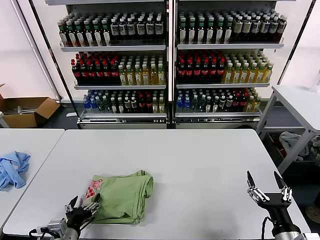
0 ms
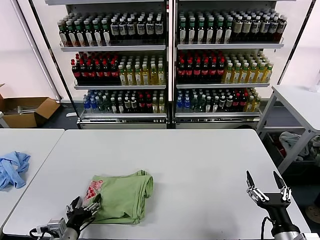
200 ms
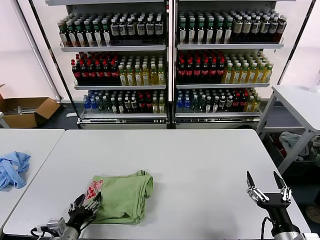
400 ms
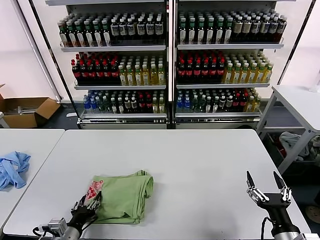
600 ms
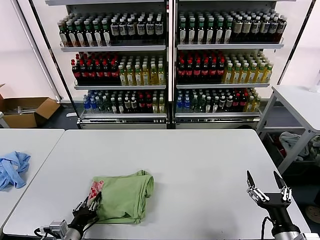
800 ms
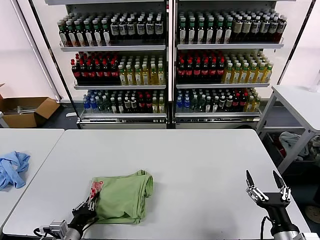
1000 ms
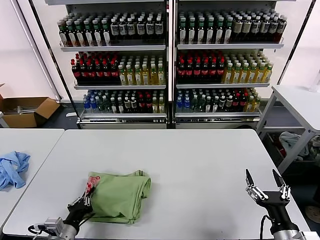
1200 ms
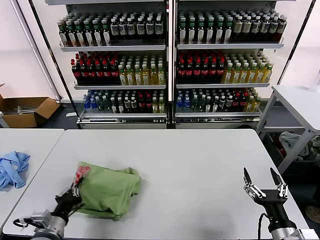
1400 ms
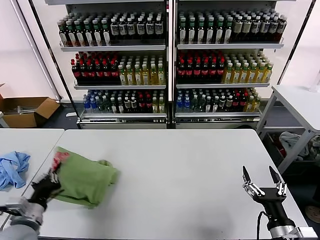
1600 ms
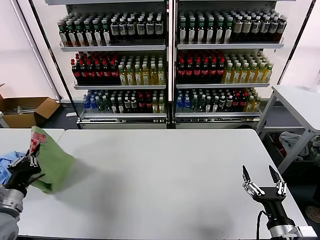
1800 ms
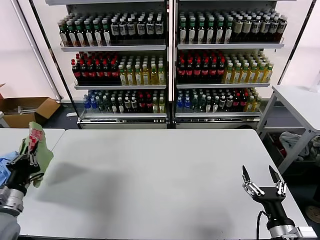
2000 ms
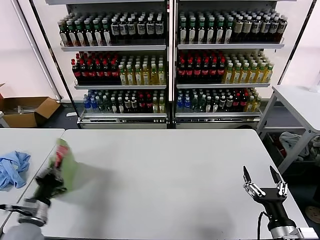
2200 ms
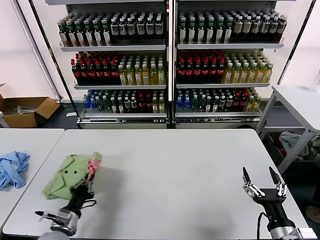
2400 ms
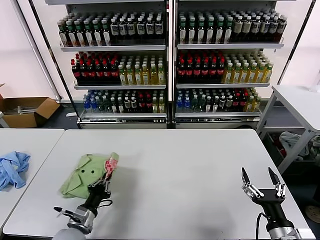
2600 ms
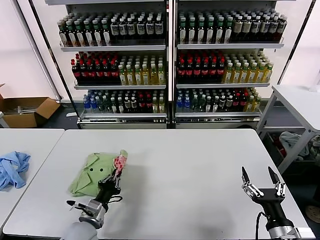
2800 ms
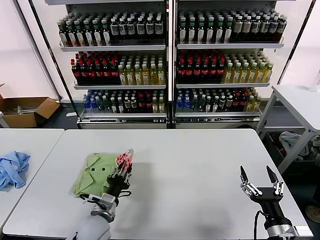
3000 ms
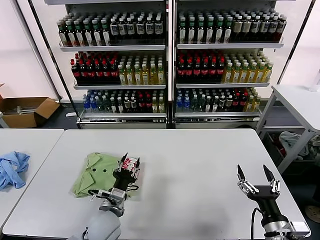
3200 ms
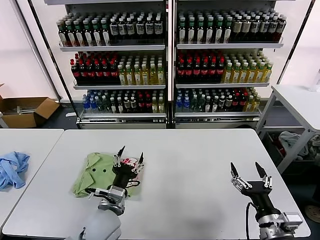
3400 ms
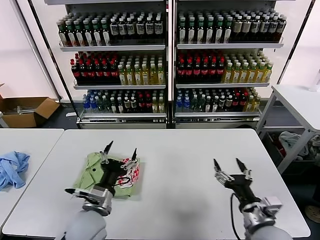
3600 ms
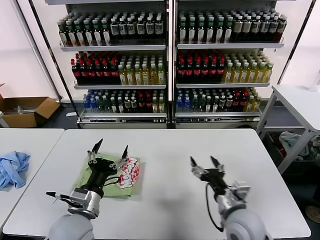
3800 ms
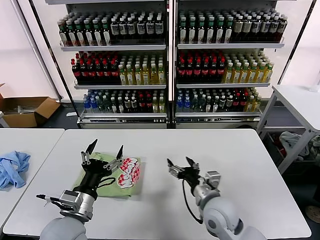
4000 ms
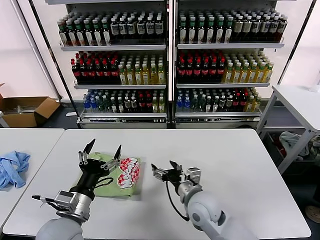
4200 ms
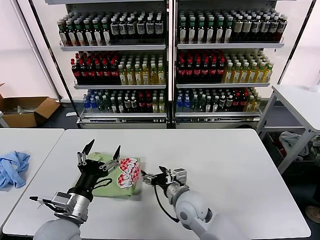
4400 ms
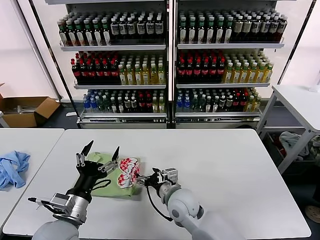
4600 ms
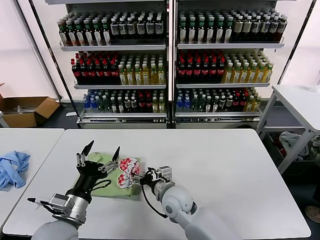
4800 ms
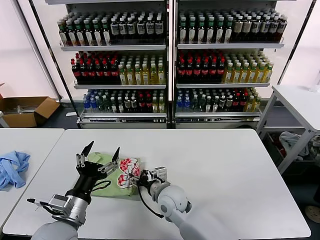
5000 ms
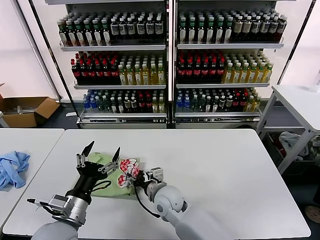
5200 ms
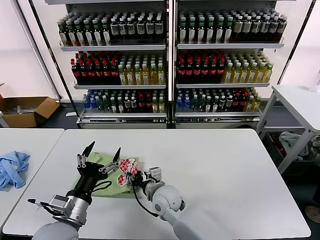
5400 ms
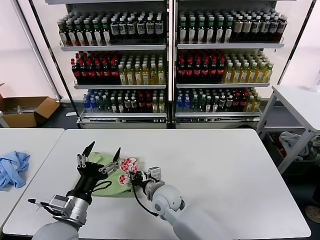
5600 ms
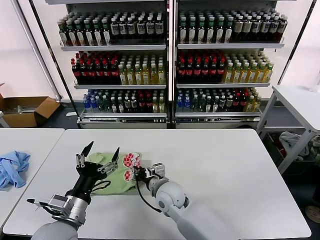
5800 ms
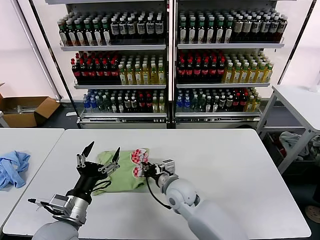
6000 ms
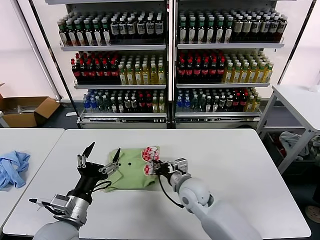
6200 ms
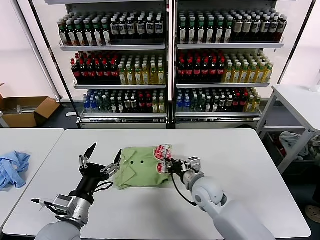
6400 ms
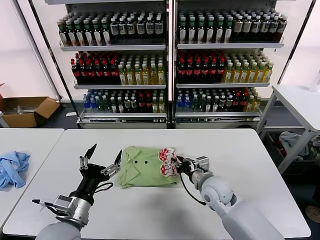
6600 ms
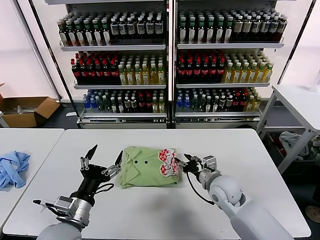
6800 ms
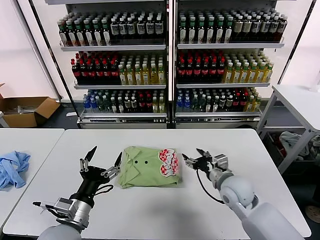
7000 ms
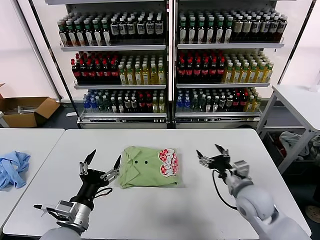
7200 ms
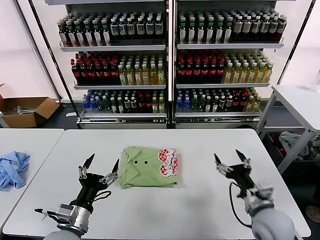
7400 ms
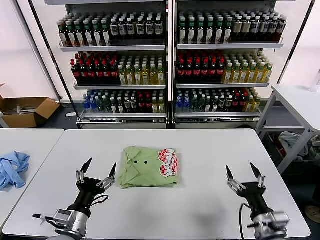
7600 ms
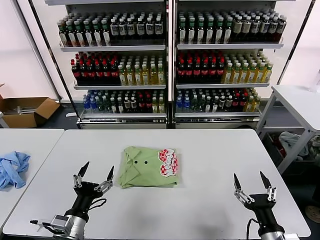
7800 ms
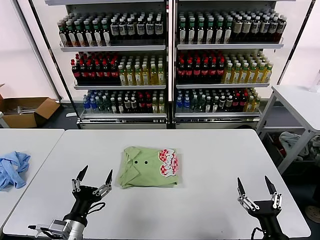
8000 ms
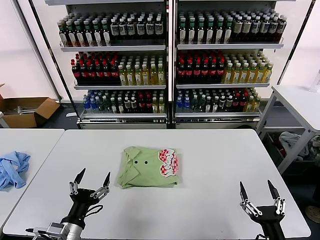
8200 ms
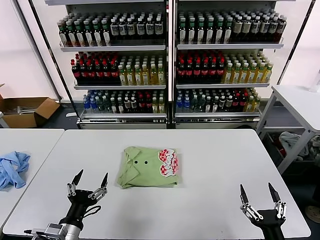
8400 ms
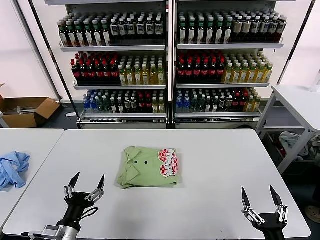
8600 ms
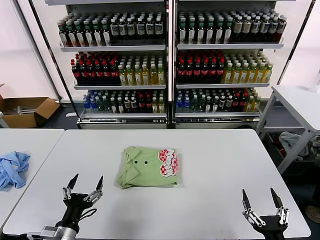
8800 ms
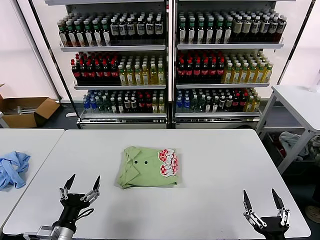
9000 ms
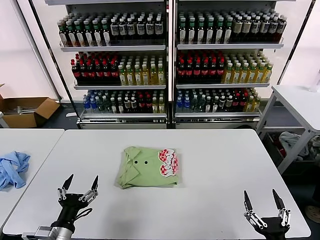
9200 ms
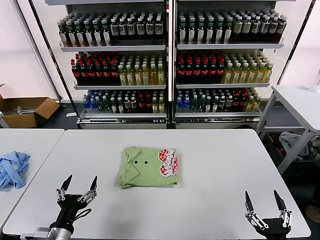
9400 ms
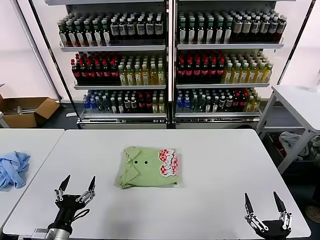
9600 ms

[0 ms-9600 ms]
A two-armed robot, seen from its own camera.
Task of the whole recording: fold and organize the clothes.
Step, 0 ms to 3000 ms: Flip the folded clothes over with left gripper.
Step, 3200 ms to 6600 ms: Drag the clothes to the center of the table.
0 ms to 1600 ms: The left gripper moves to the left and upward, roughly 10 cm, and closes up.
1600 ms to 3200 ms: The left gripper goes roughly 20 cm to the right, and opens its fingers.
3200 ms to 4800 ms: The right gripper goes some 30 cm to the left and forward, while the left gripper goes approximately 15 cm upward, to the left and backward, and opens its fingers.
4800 ms to 6400 ms: The right gripper moves to the right, roughly 10 cm, and closes up.
6400 ms to 8000 ms: The left gripper shifts about 5 cm downward. Meanwhile the right gripper is displaced backward and to the right by roughly 30 cm, and opens.
8000 ms to 9600 ms: The right gripper shifts roughly 5 cm backward.

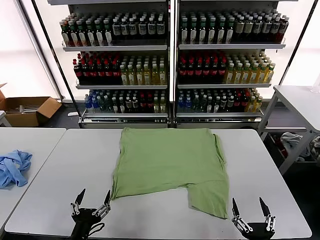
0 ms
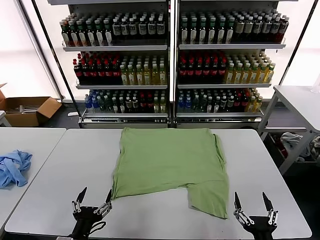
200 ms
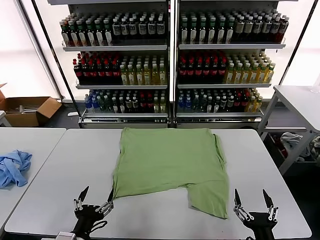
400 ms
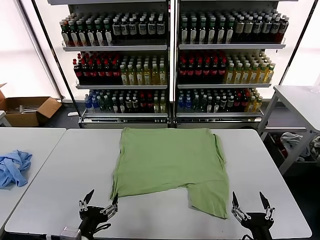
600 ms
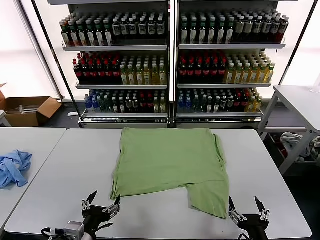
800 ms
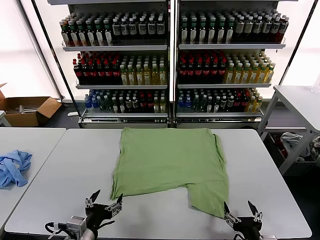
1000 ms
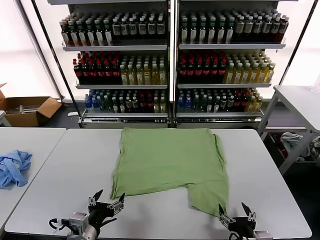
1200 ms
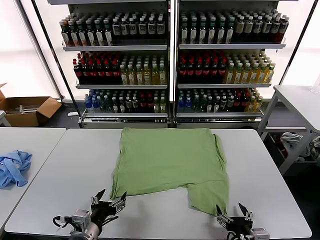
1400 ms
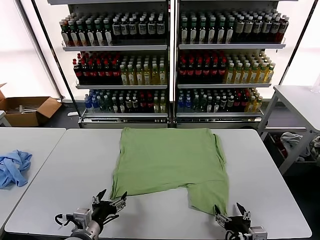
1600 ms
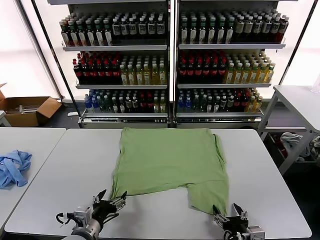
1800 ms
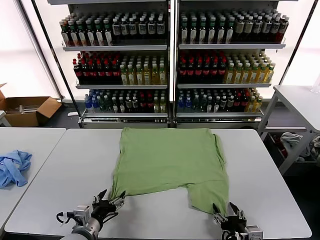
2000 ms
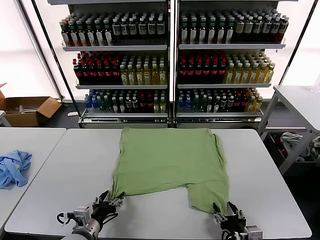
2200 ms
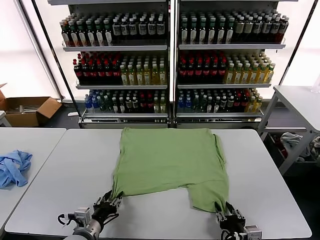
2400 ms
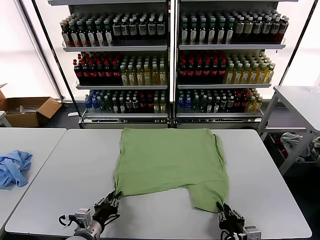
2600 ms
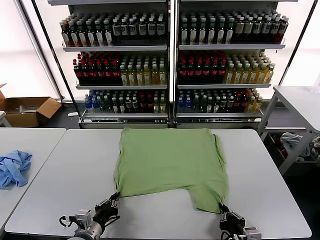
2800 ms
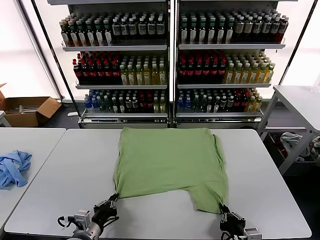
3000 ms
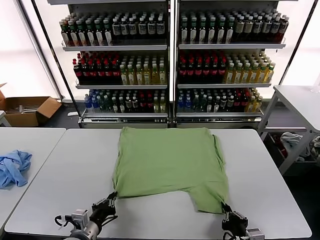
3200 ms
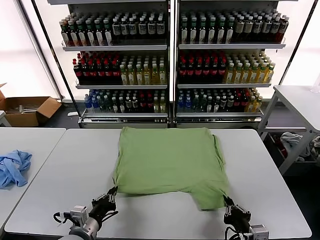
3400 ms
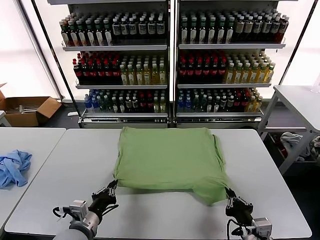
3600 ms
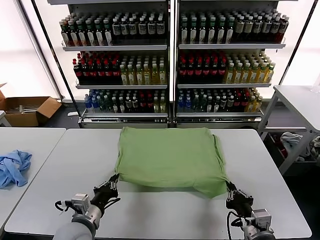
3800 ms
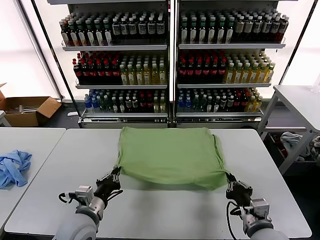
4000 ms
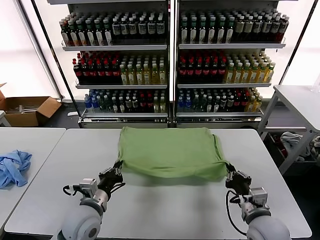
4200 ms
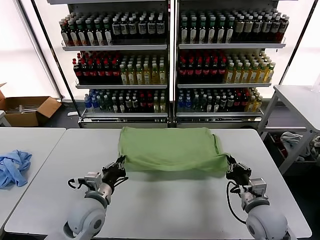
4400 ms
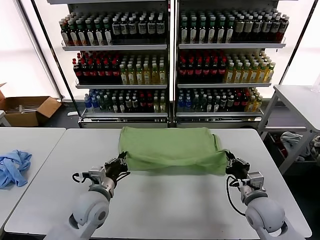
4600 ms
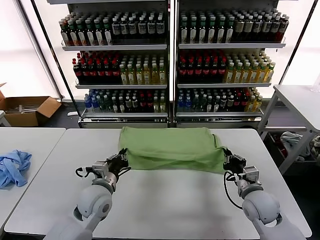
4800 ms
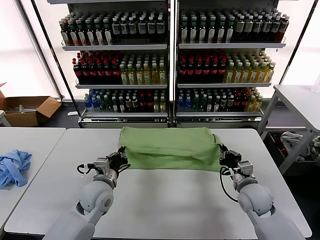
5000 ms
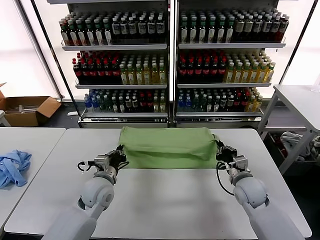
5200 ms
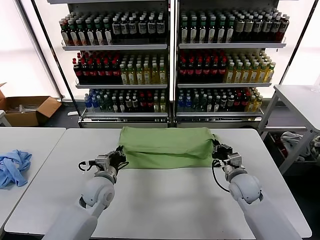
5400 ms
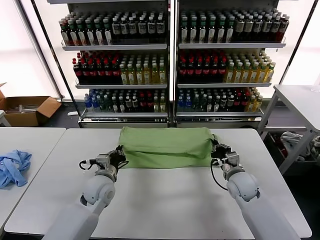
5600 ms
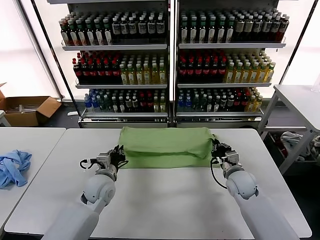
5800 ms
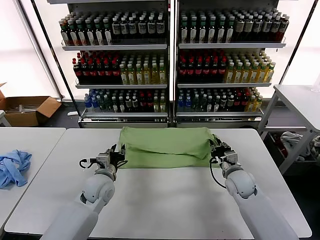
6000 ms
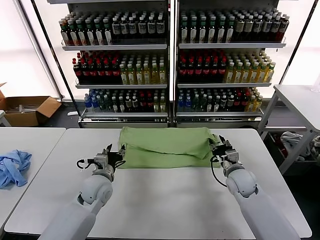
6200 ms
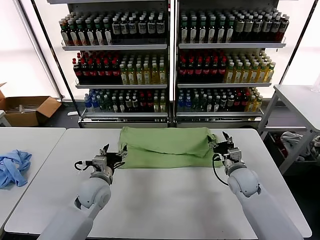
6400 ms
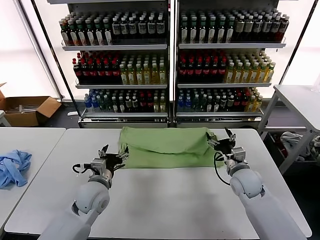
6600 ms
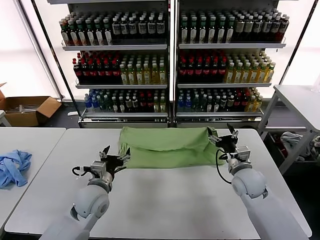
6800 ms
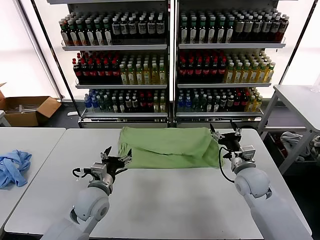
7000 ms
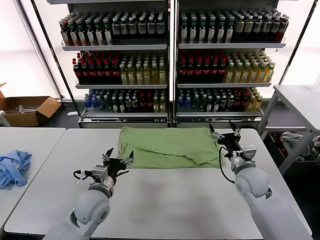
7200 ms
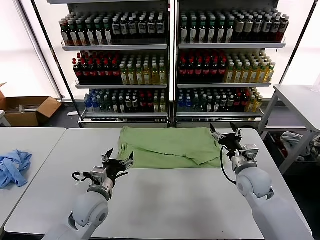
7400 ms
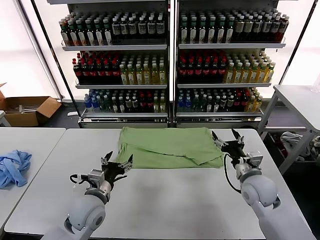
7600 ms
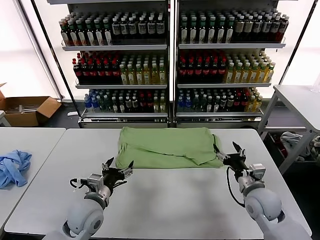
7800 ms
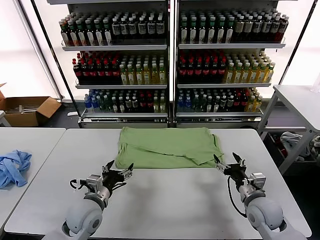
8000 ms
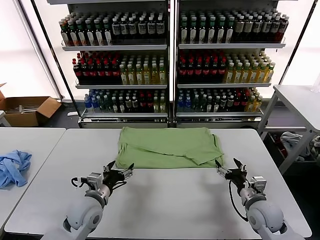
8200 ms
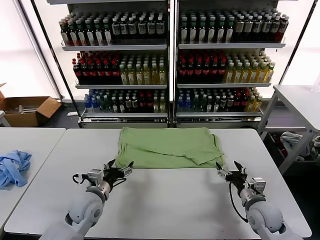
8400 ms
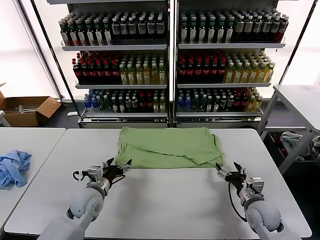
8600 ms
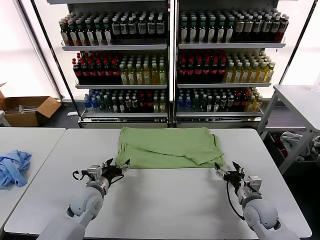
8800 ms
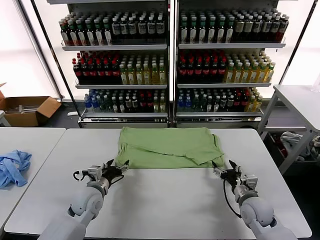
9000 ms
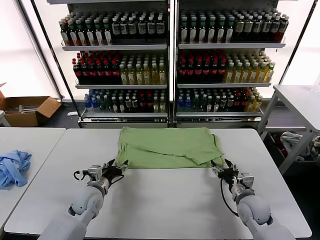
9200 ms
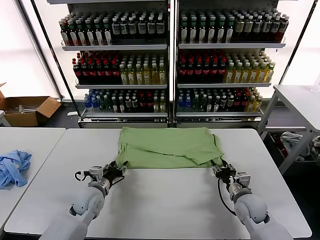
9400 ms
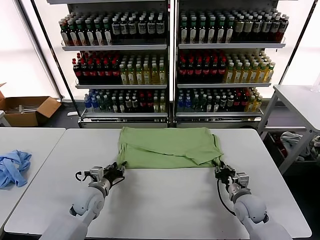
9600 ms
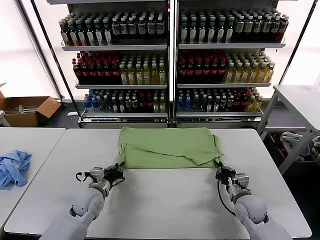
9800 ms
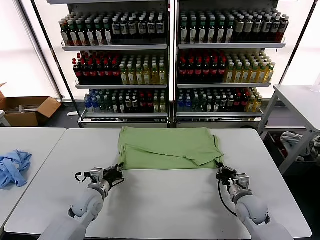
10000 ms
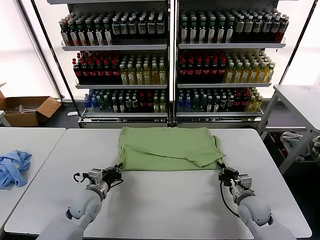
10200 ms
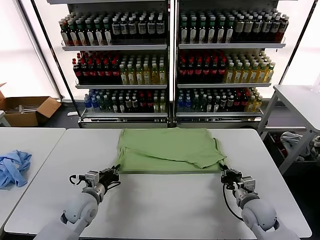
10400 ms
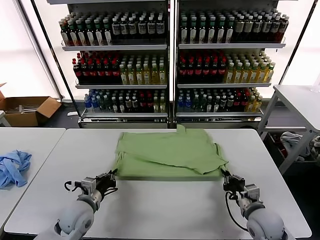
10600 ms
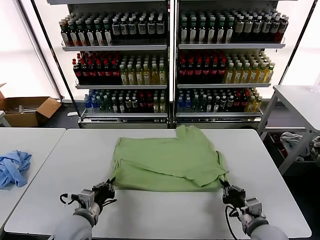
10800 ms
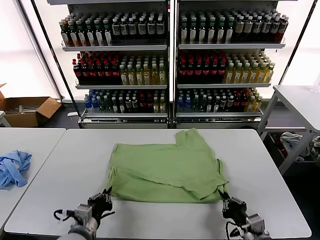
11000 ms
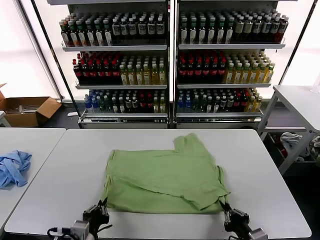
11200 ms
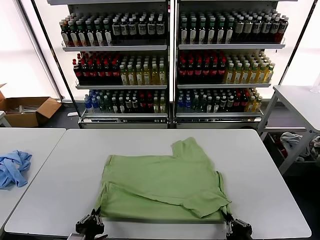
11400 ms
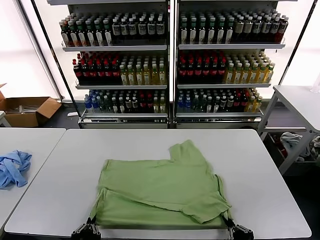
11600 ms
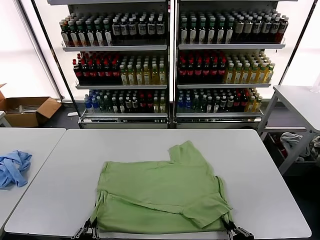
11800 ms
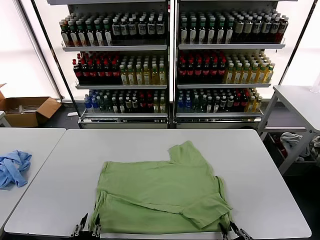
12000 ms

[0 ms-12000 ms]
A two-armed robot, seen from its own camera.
Task of the whole recording: fold and organize the clothes.
Step, 0 ms to 3000 ms: use both grippers simultaneously to clamp the lower edge of the clothing fabric.
Step, 3200 ms to 6800 ms: use both grippers to drag the lower edge of the fabric forward and fold it over the upper edge.
1600 ms to 3000 ms: The left gripper closes up, while the right gripper closes its fingers.
3000 ms to 4400 ms: The left gripper shifts some 10 cm forward and upward; the right gripper heads forward, covering some 15 cm.
4400 ms to 6000 ms: The two grippers go some 10 cm forward. The right gripper opens its fingers. Meanwhile the left gripper opens its fingers.
6000 ms to 7600 ms: The grippers both shift backward by roughly 10 cm. The left gripper opens its fingers. The right gripper opens.
7600 ms to 9000 ms: The right gripper heads downward, covering approximately 10 cm. Meanwhile the left gripper moves forward and downward, some 10 cm.
9000 ms to 10400 ms: The right gripper closes, while the left gripper closes.
10400 ms to 12000 ms: Both grippers travel together backward, about 25 cm. The right gripper opens. The left gripper opens.
